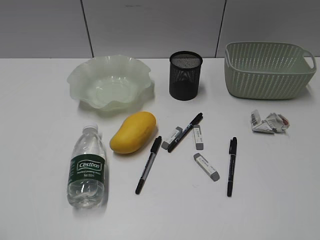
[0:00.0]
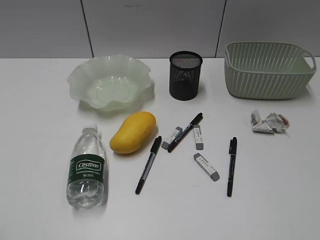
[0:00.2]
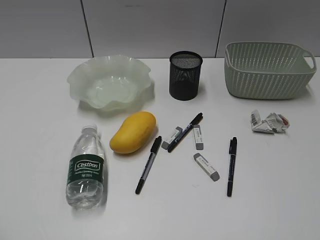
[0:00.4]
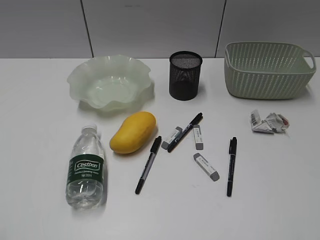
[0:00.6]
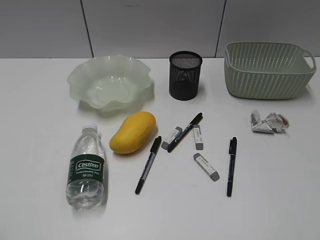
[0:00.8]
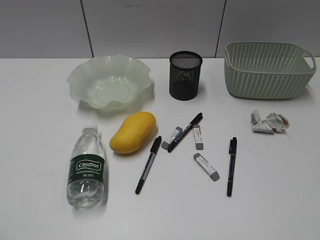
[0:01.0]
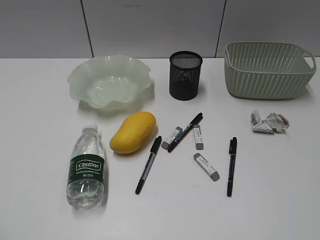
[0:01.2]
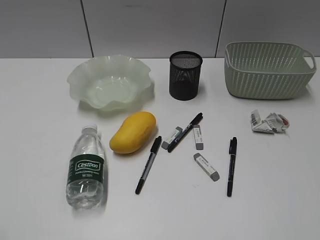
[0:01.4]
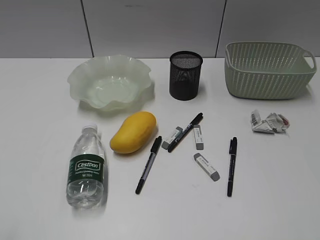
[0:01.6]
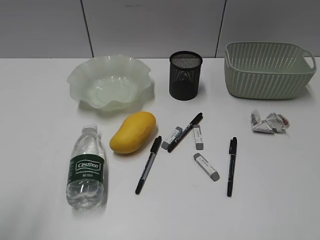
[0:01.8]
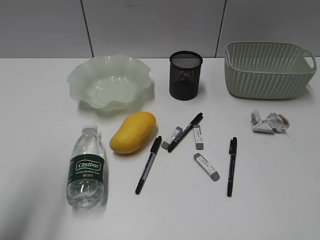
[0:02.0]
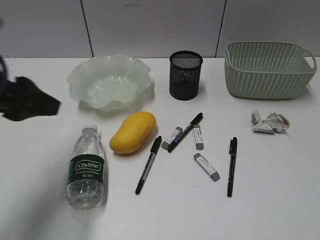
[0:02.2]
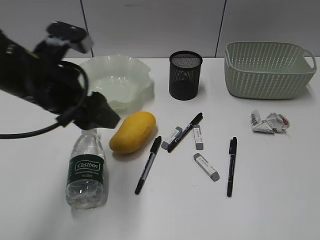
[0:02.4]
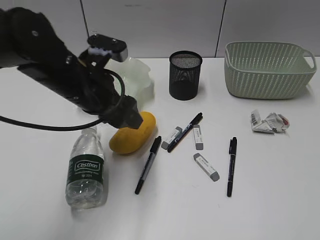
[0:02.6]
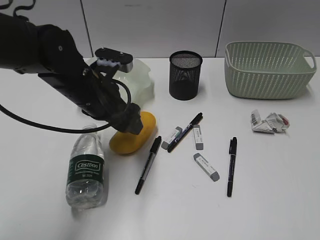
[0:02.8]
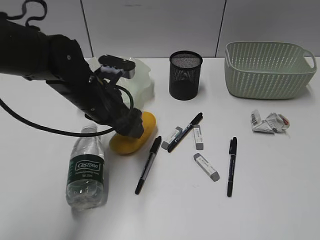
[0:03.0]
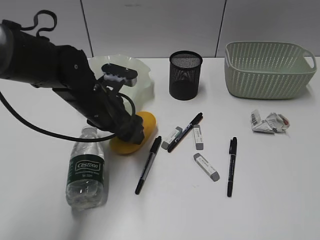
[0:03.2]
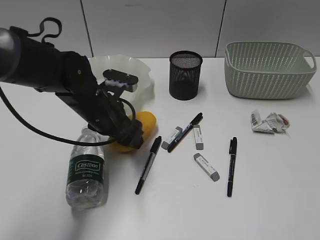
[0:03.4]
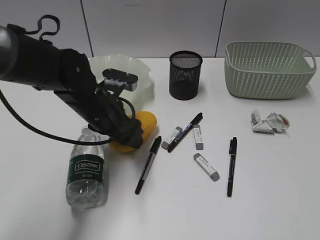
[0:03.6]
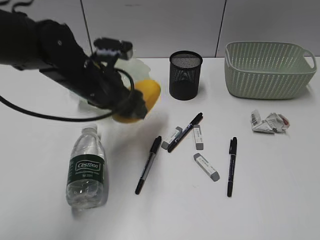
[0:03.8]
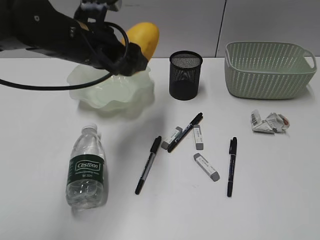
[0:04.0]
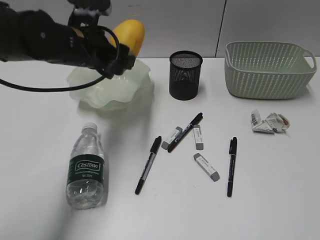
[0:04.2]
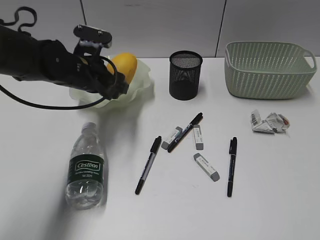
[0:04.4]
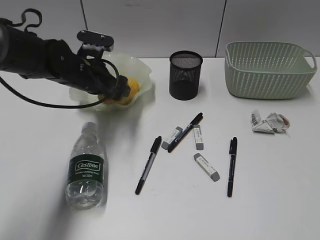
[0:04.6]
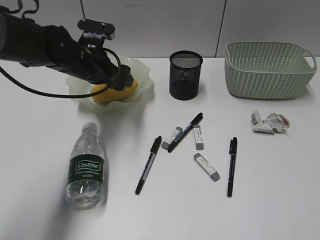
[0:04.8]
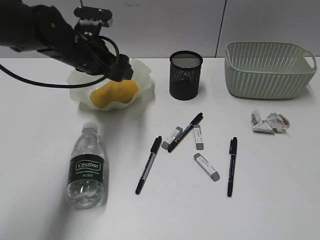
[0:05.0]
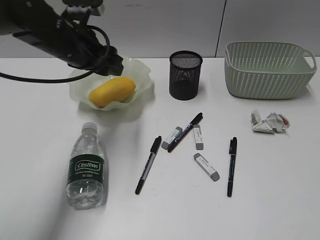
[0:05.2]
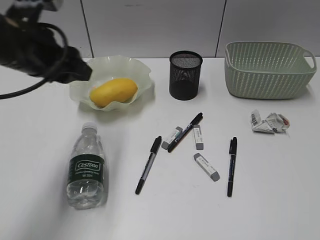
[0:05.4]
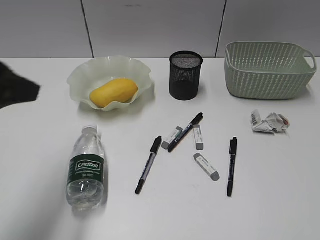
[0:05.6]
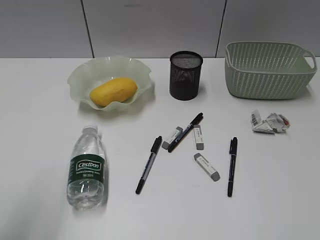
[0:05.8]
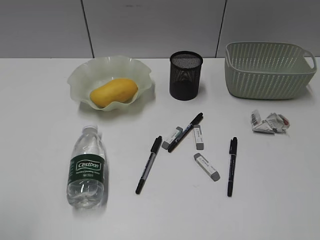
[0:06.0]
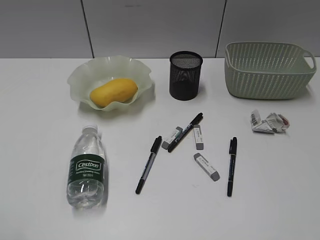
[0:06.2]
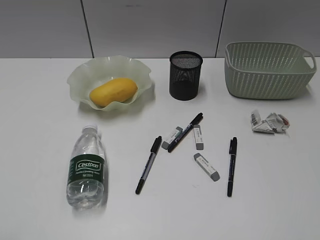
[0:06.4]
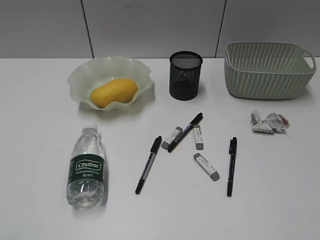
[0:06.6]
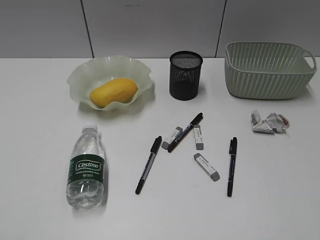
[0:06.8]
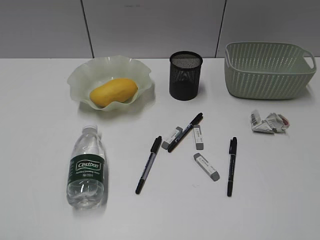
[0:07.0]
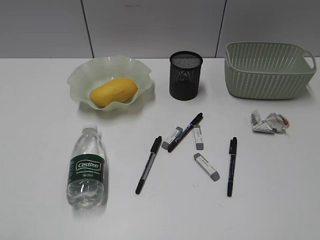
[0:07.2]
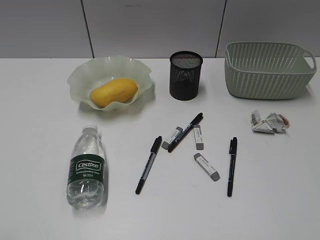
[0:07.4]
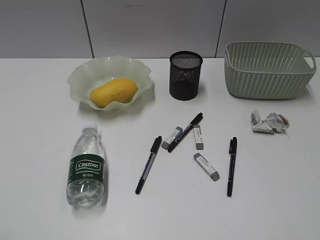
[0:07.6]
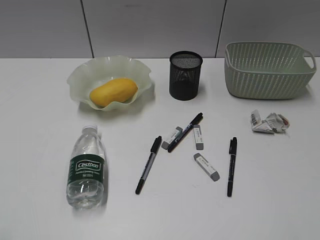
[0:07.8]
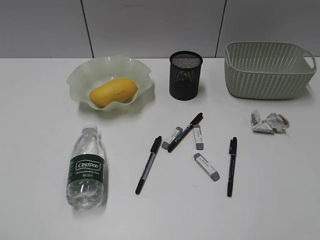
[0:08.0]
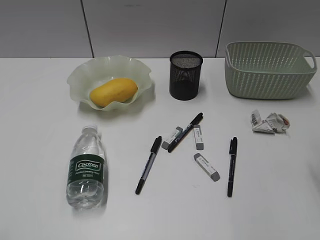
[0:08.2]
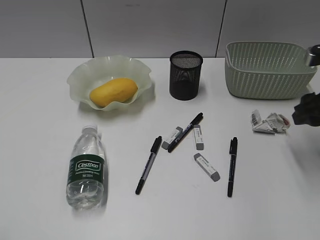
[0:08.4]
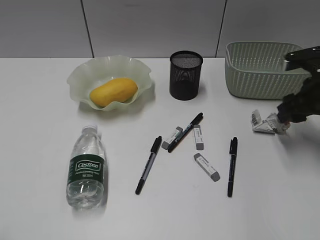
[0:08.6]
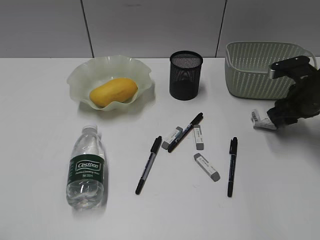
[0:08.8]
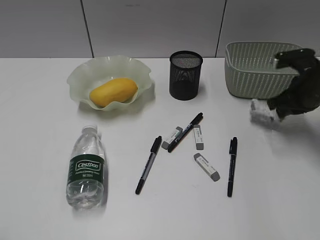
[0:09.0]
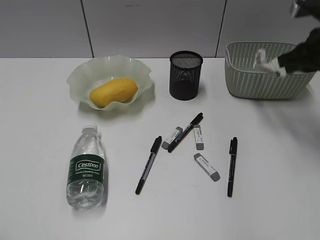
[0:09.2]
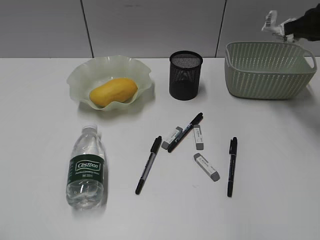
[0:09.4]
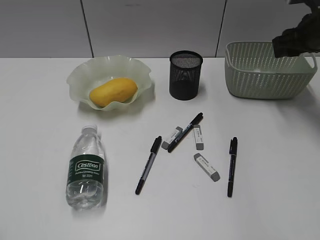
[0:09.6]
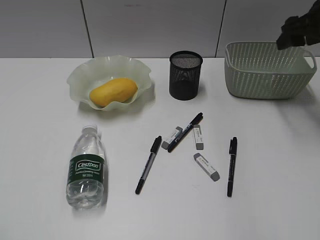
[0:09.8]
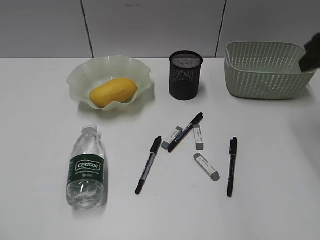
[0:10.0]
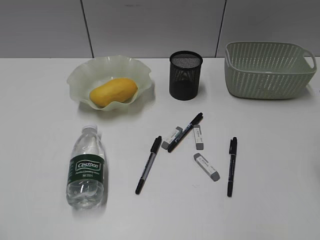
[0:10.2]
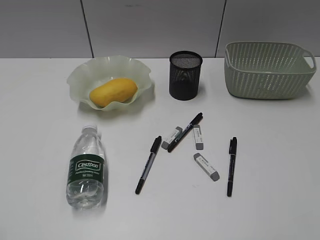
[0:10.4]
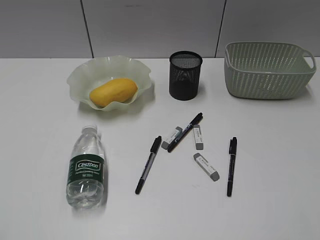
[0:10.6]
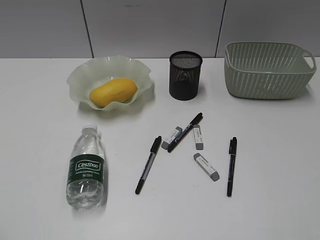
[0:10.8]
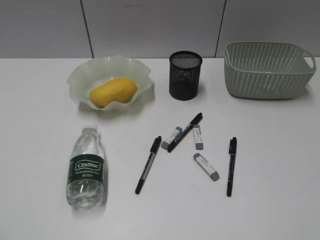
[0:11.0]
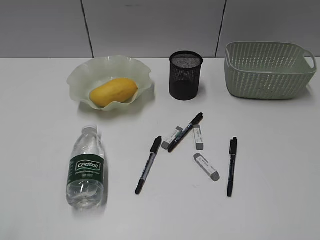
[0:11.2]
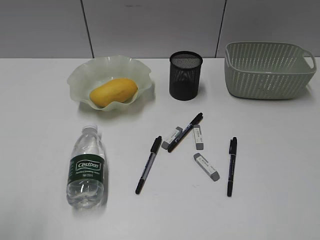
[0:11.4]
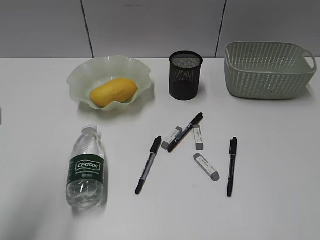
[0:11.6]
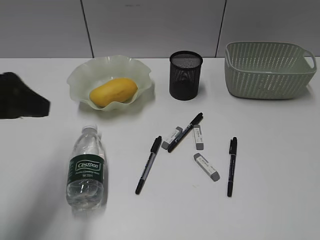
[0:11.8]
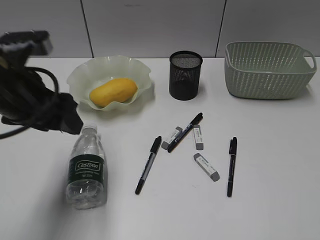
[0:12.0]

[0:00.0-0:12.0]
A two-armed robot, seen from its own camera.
Step, 0:01.6 to 0:03.4: Grasp the mango with left gripper.
Step, 0:03.6 to 0:05.0: Place the mango in the plate with left gripper.
Step, 0:05.2 to 0:08.8: Grasp the waste paper with right gripper.
Step, 0:09.0 to 0:09.6: Place the waste paper in the basket with right gripper.
0:01.6 to 0:03.0: The left gripper goes roughly 40 cm forward, to the right and downward, and opens its fingers.
0:03.0 to 0:04.4: The left gripper moves forward, some 5 cm, and reaches some 10 cm upward, then returns.
0:04.4 to 0:06.0: The left gripper shifts approximately 40 cm backward, to the left and upward.
0:07.6 to 0:09.0: The right gripper goes approximately 40 cm forward and downward, and closes its fingers.
0:09.0 to 0:10.4: The right gripper travels backward and upward by some 30 cm, and opens its fingers.
0:10.4 to 0:12.0: The left gripper shifts approximately 30 cm forward and to the right, and opens up; the right gripper moves backward, about 15 cm.

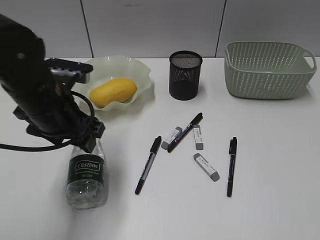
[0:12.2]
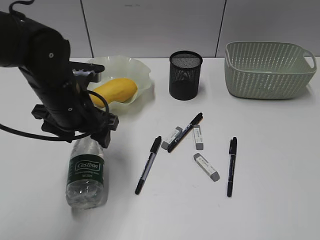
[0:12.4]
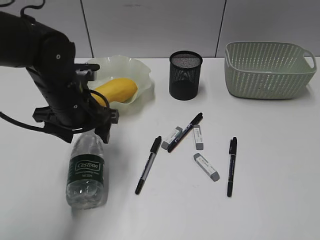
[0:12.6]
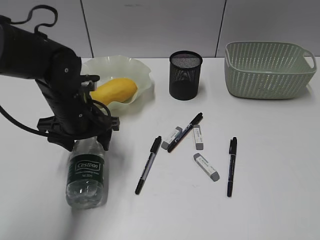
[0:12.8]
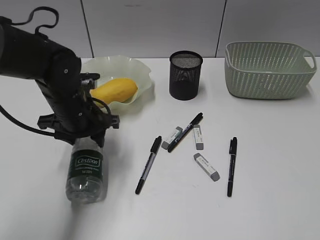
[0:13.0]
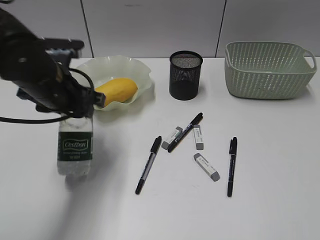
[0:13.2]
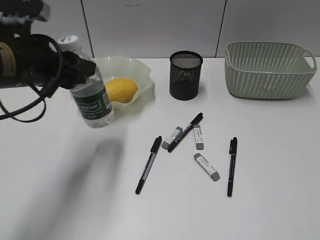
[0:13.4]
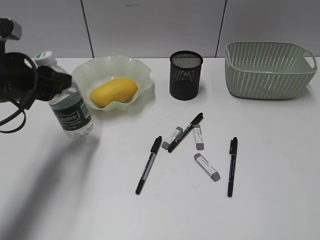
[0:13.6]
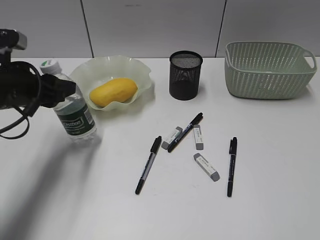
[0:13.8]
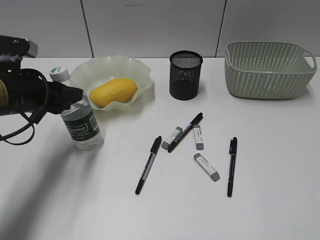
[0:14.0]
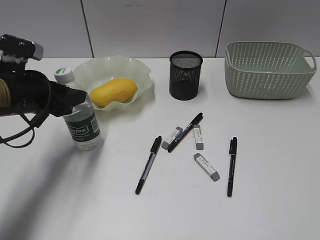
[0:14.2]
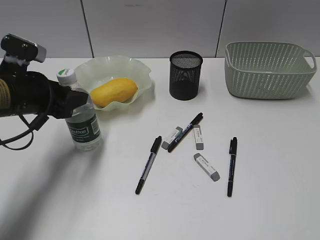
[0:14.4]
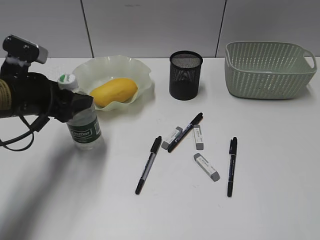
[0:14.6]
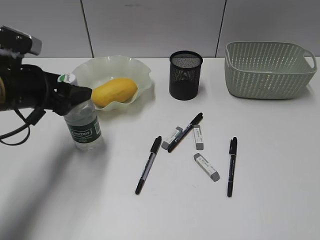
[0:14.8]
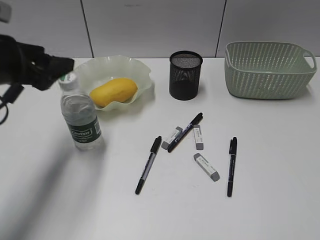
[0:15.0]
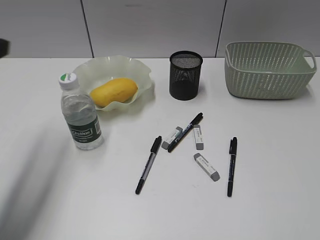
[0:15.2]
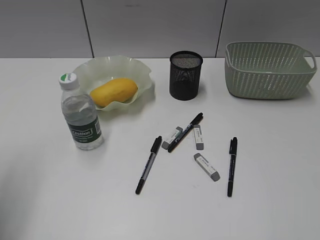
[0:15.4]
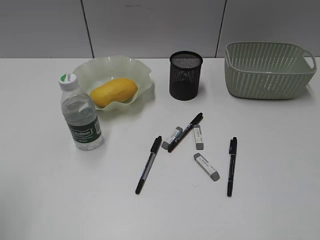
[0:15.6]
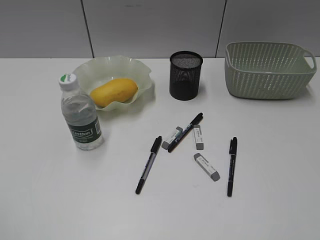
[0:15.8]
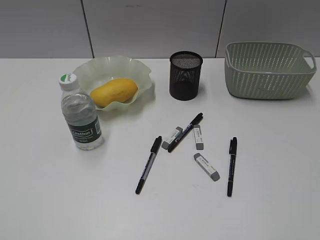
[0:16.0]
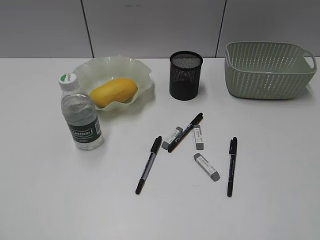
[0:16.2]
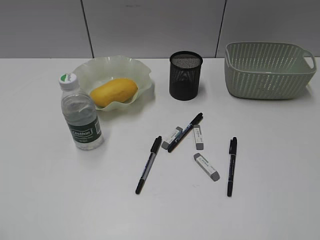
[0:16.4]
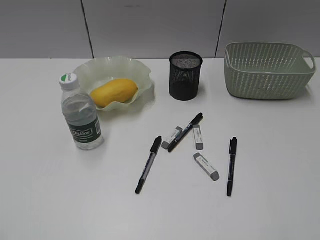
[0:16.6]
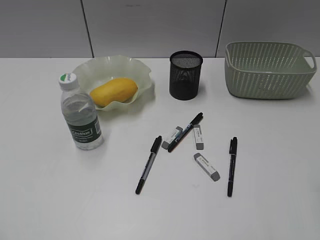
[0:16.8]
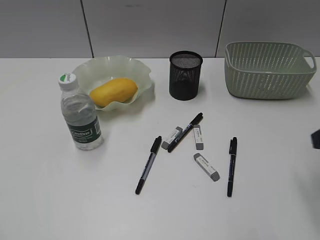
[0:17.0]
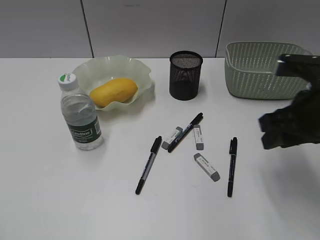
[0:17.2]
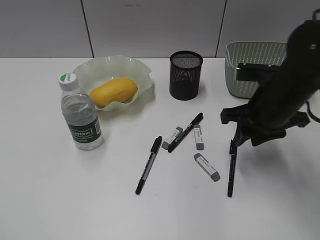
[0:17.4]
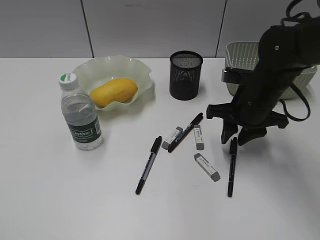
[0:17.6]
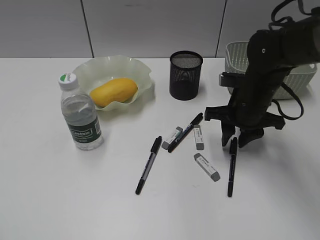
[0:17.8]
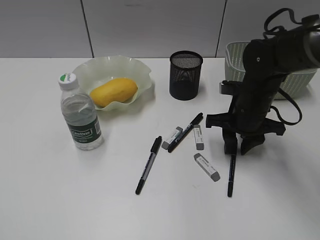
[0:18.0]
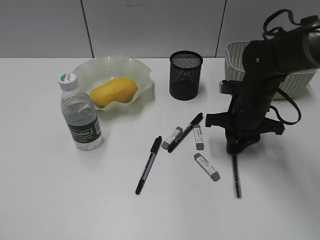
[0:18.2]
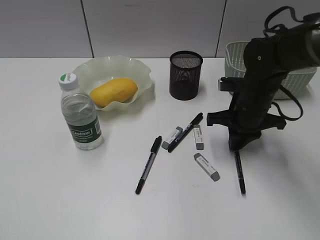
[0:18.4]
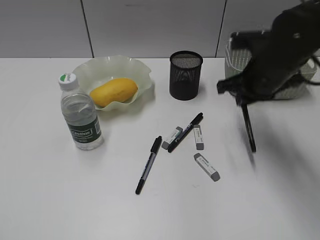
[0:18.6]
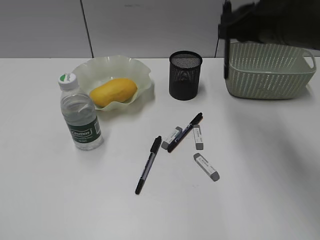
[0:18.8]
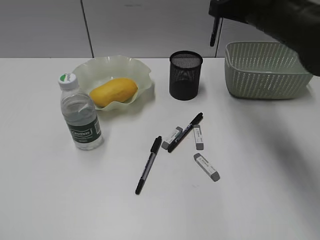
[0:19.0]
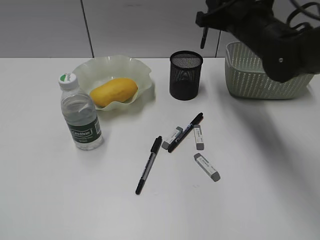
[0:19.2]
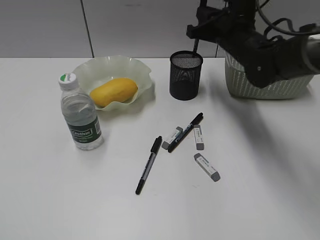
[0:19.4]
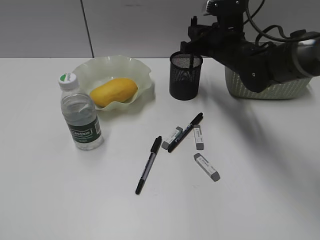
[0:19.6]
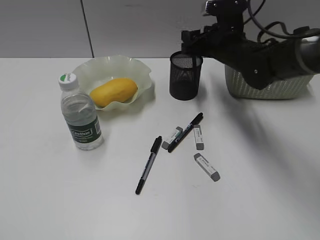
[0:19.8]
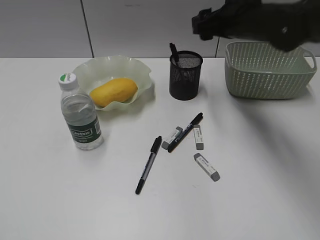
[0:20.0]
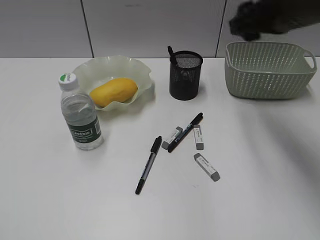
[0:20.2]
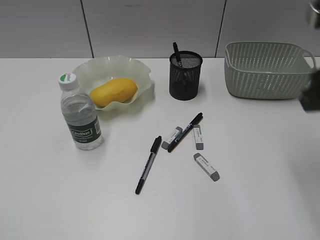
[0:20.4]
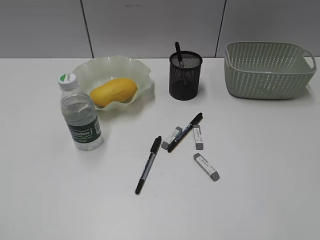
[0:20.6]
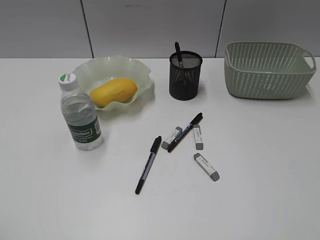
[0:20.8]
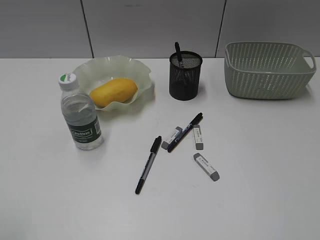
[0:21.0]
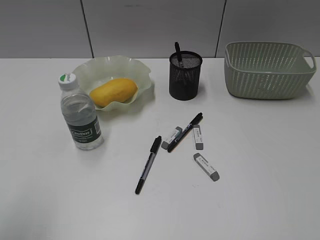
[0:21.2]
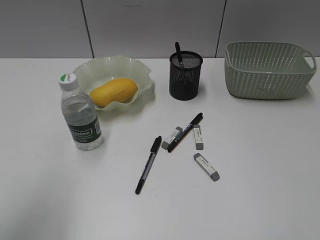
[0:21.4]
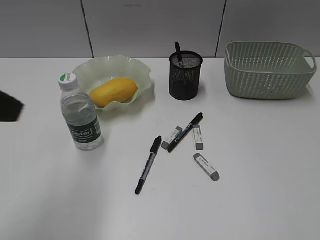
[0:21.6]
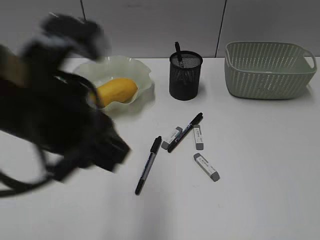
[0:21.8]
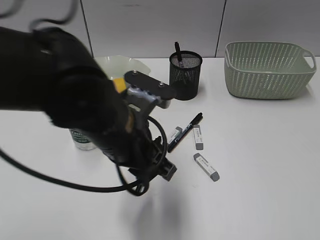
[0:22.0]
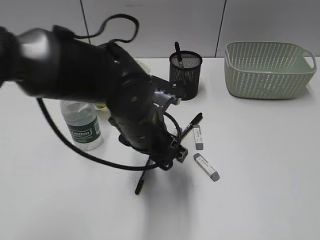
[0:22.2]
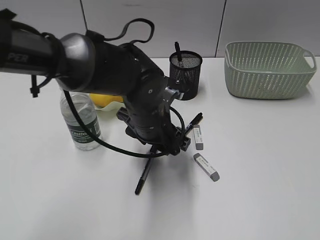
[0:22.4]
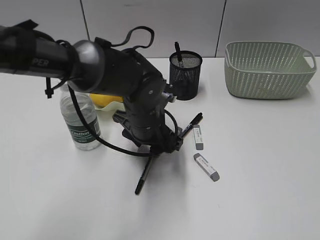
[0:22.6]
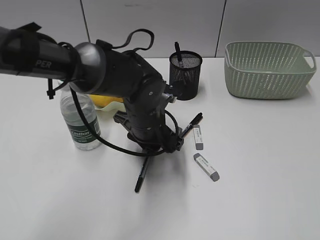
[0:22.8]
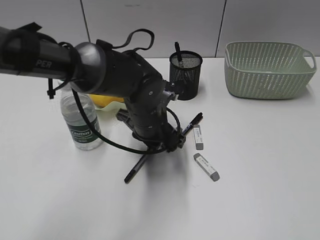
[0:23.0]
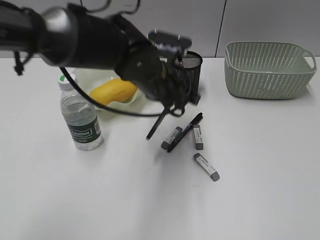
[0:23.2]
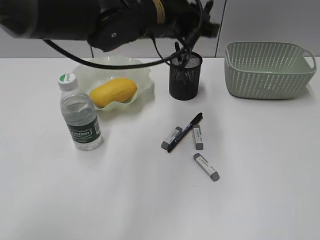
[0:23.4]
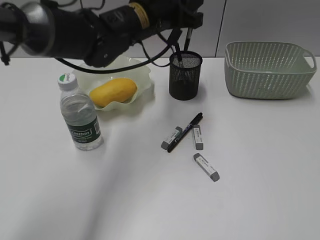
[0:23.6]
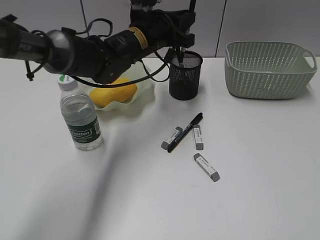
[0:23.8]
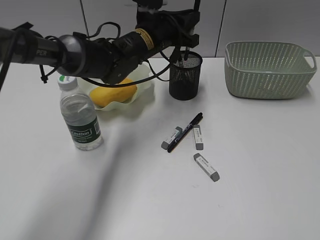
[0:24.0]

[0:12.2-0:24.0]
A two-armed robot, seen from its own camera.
Step, 0:13.0 to 0:15.0: Stand the bottle with left gripper.
Step, 0:15.2 to 0:18.2: Grasp the black pen with right gripper.
Step, 0:18.4 to 0:19.8: Place the black pen in pen holder with right gripper.
Step, 0:20.0 to 0:22.8: Grasp the black pen with left gripper.
0:12.2 to 0:13.6: The left gripper is displaced to the left by about 5 cm, and travels downward and back again, roughly 5 cm each way.
0:13.6 to 0:15.2: The left gripper shifts about 5 cm upward.
0:15.2 to 0:16.6: The left gripper goes approximately 25 cm backward.
0:16.6 to 0:18.2: The right gripper heads forward, downward and to the left, covering about 40 cm.
0:18.2 to 0:19.6: The right gripper moves forward and upward, approximately 10 cm.
0:19.6 to 0:21.0: The right gripper moves backward and to the right, some 50 cm, and opens up.
0:21.0 to 0:22.6: The left gripper travels to the right, forward and downward by some 40 cm.
0:22.6 to 0:24.0: The left gripper heads forward and upward, covering some 15 cm, and closes.
